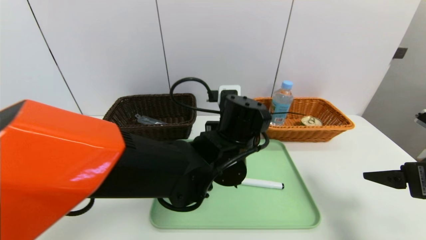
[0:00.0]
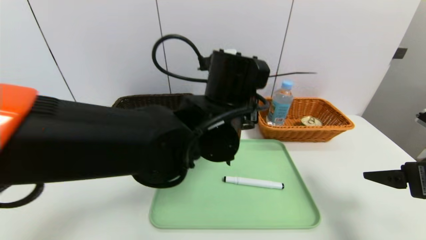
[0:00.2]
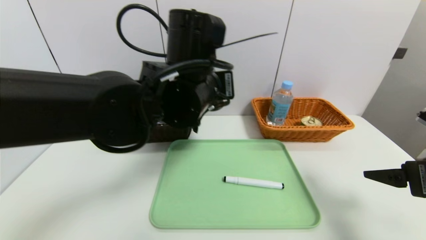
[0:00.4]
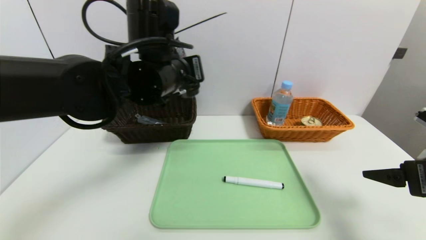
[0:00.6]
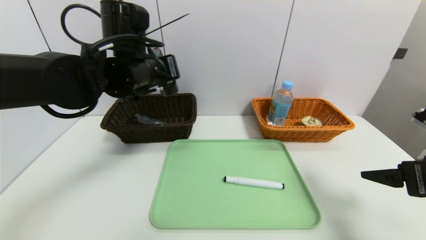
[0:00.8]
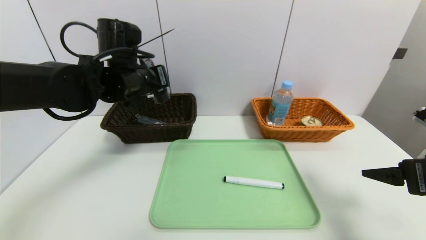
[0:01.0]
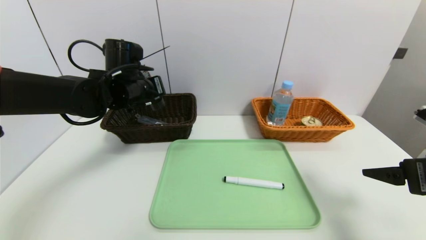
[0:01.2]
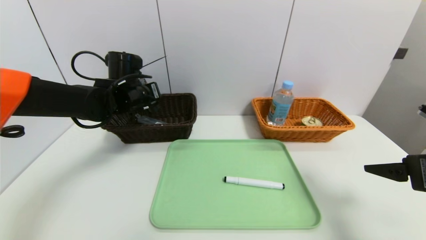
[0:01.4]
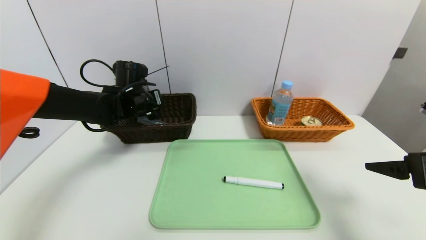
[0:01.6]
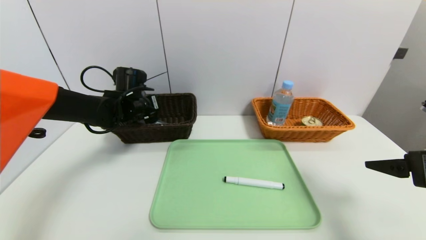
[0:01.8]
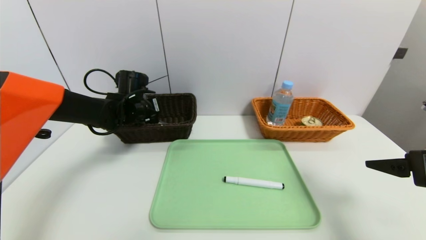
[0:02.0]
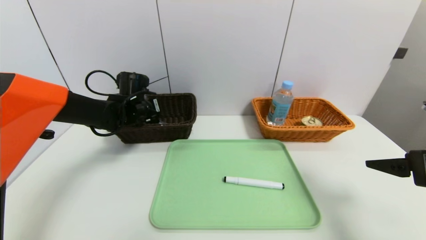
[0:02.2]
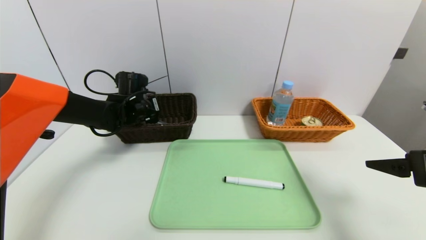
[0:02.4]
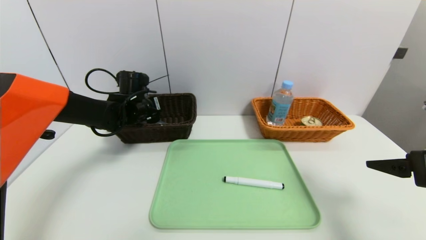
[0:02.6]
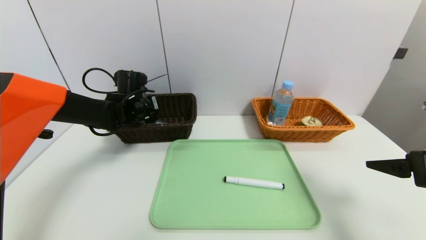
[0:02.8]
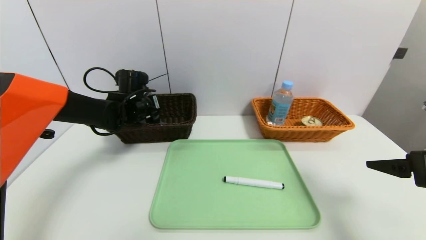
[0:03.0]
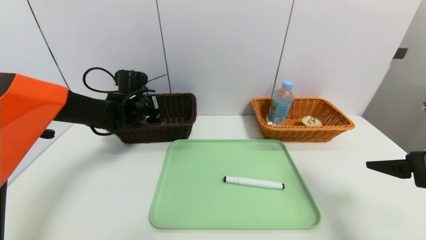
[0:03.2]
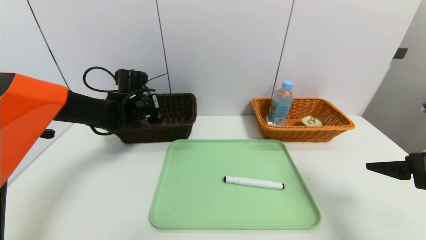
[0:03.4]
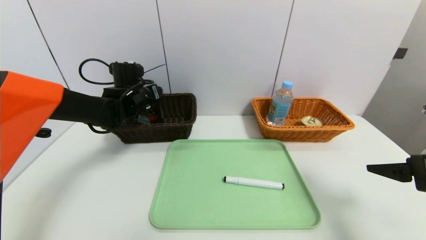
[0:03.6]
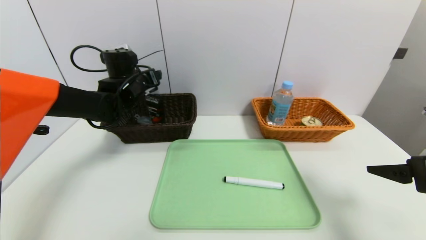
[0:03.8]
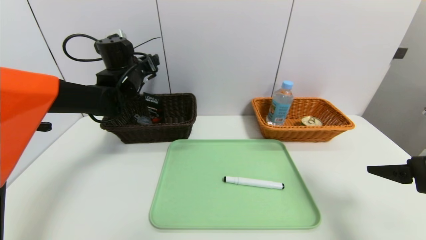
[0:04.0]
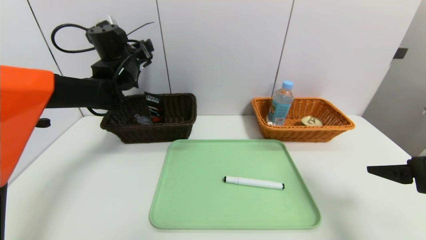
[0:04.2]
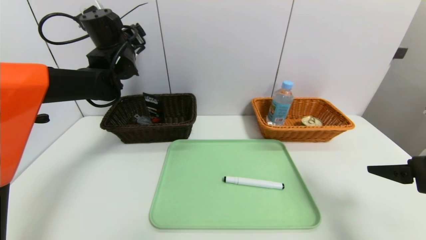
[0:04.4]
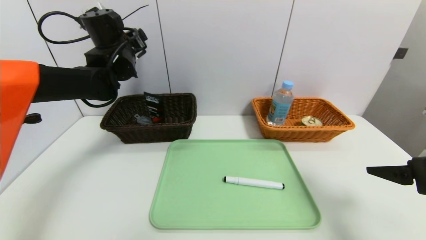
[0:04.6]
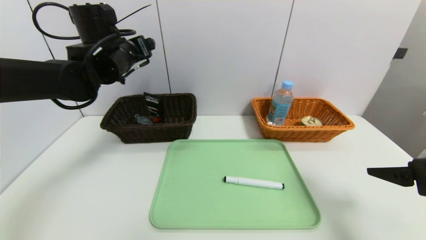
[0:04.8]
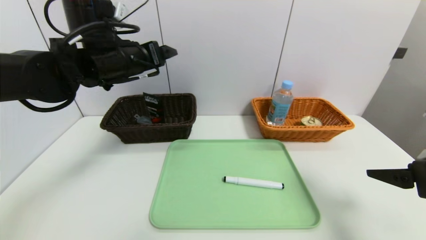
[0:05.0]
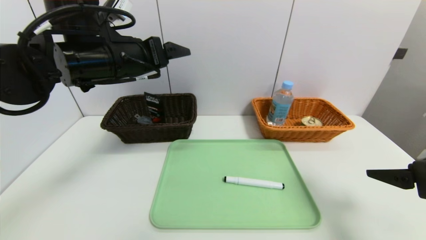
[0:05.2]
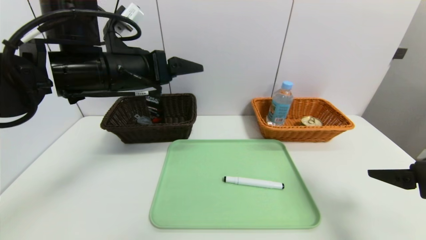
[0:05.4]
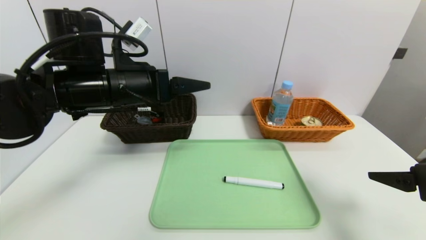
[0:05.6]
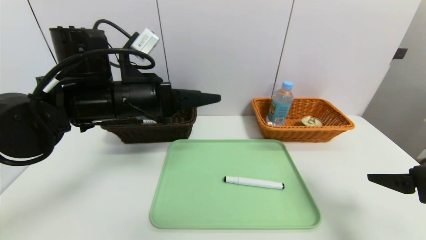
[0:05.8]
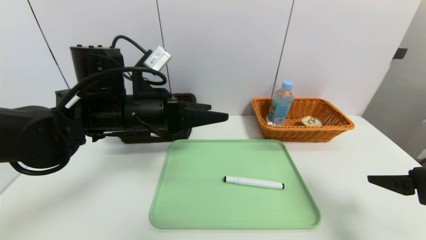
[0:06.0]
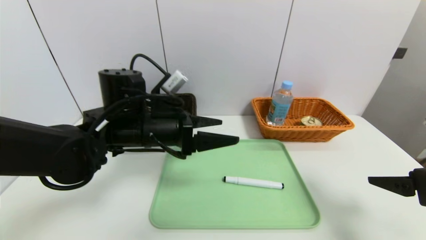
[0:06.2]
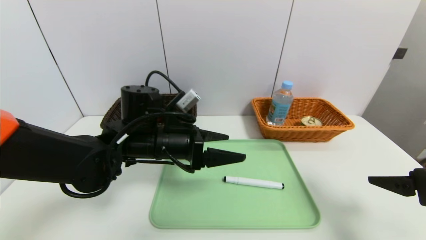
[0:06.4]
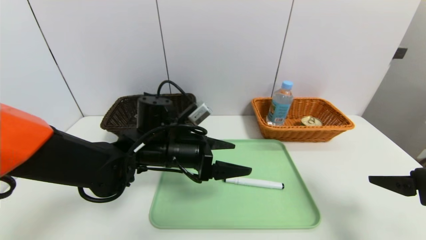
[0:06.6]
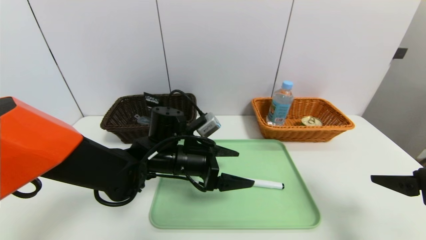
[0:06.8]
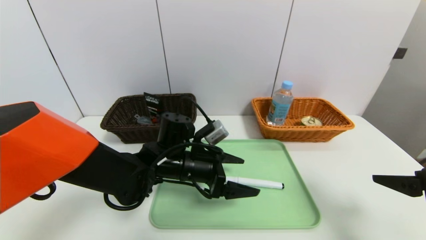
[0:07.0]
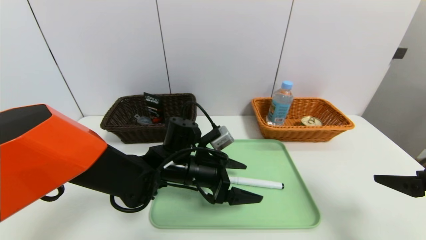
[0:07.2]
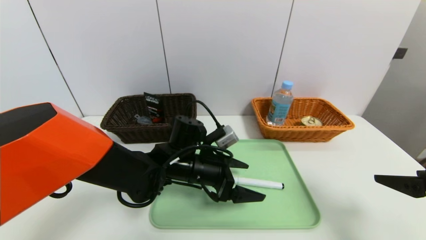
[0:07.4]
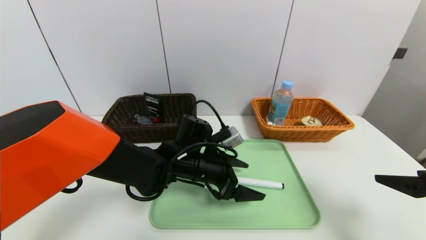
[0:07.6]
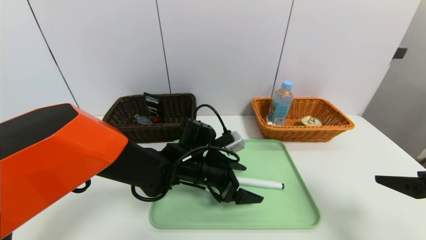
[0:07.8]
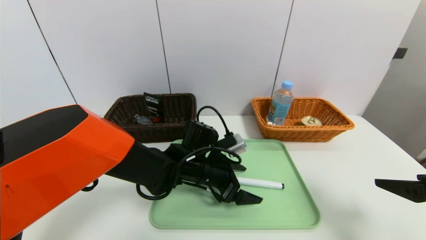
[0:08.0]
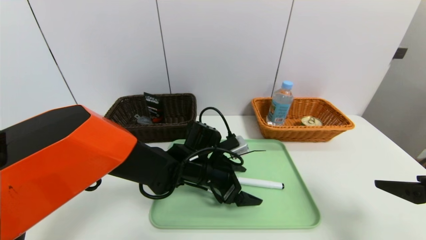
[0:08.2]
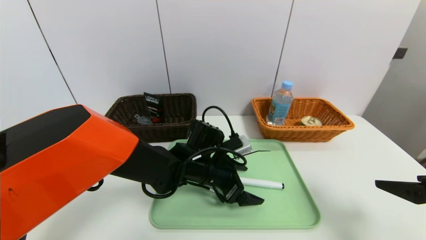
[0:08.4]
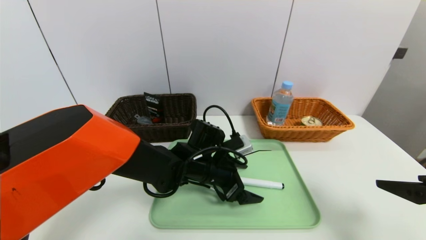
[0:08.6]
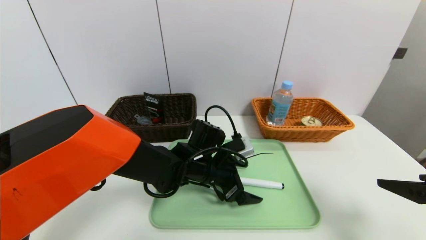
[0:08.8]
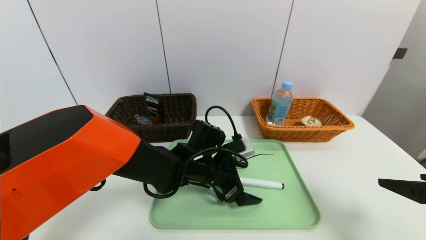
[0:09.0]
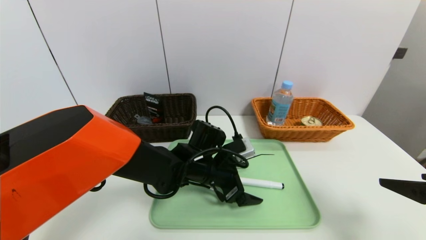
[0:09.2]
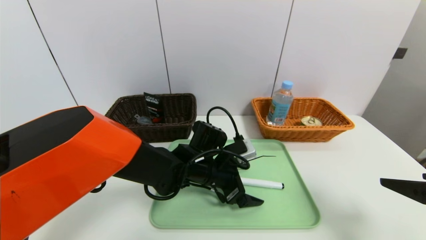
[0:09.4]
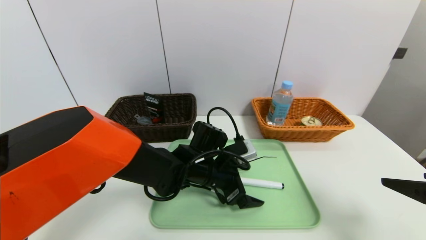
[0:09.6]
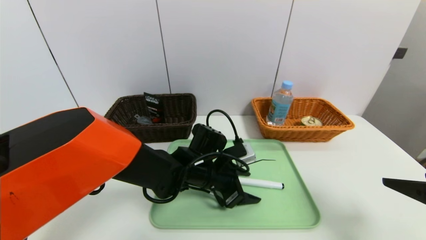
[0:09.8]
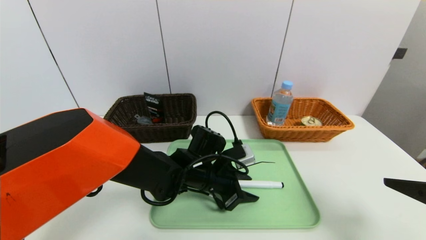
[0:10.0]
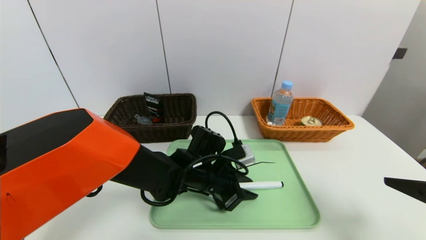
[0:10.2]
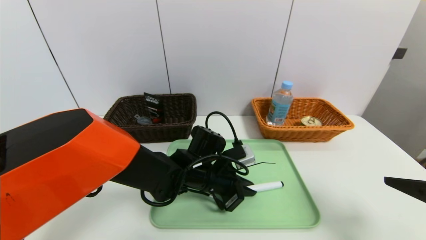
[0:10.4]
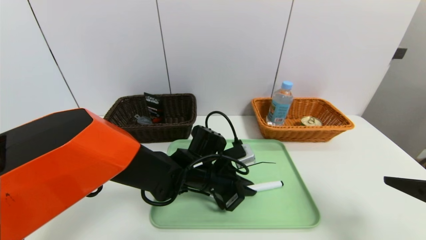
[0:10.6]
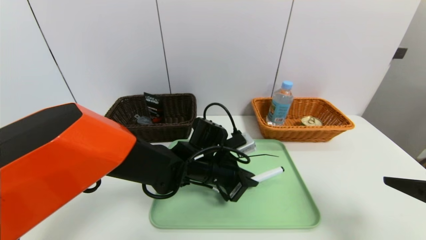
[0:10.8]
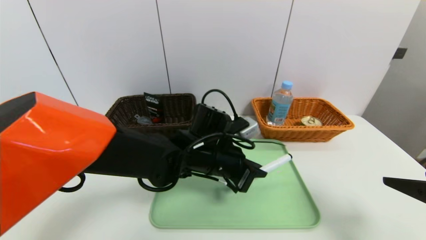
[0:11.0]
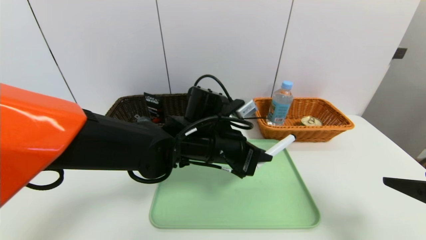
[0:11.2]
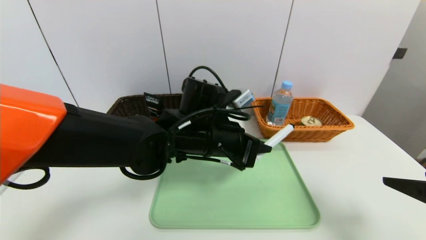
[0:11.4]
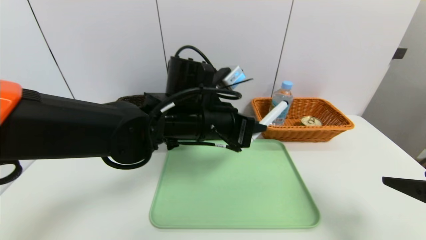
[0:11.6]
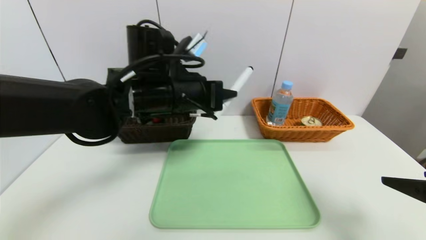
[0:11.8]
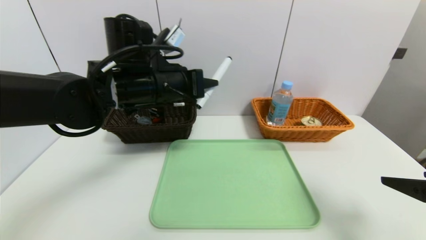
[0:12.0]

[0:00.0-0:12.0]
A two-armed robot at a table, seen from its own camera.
Task of the whole recording: place the food in the right basket with the right gripper, and place the non food items in the left basket with the left gripper.
Step, 0:00.0 to 0:03.6: Grasp the soft cleanser and put it in the left basket.
0:00.0 to 0:01.6: The left gripper shifts approximately 25 cm to the left and forward.
0:01.6 to 0:03.0: The grippers make only small movements.
0:03.0 to 0:04.4: The left gripper moves upward, roughly 15 cm, and opens its fingers.
0:04.4 to 0:06.0: The left gripper heads backward and to the right, covering approximately 20 cm.
0:06.0 to 0:07.6: The left gripper moves downward and to the right, roughly 15 cm.
0:07.6 to 0:09.0: The grippers make only small movements.
0:09.0 to 0:10.4: The left gripper closes.
0:10.4 to 0:12.0: The left gripper goes some 20 cm upward and to the left.

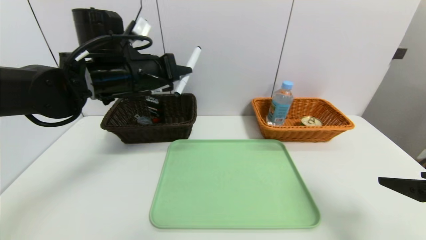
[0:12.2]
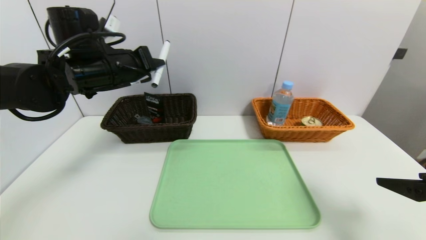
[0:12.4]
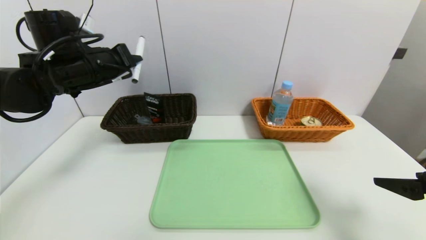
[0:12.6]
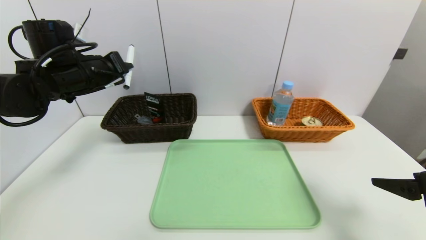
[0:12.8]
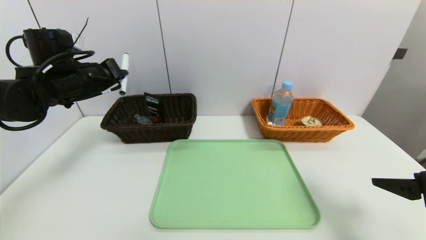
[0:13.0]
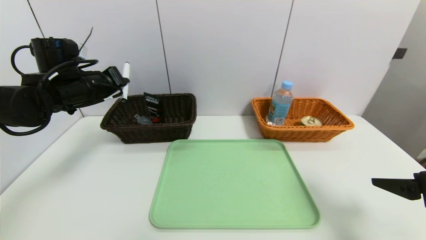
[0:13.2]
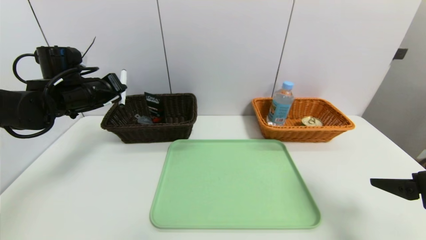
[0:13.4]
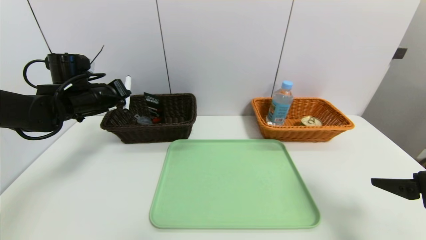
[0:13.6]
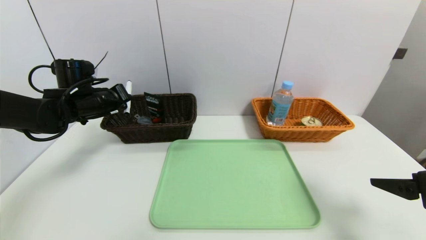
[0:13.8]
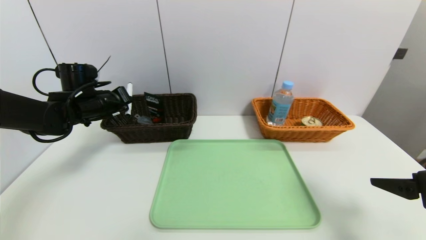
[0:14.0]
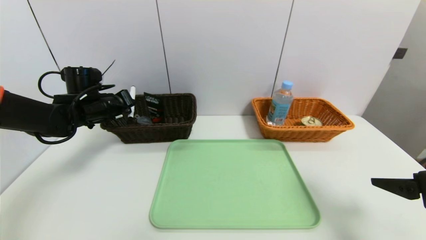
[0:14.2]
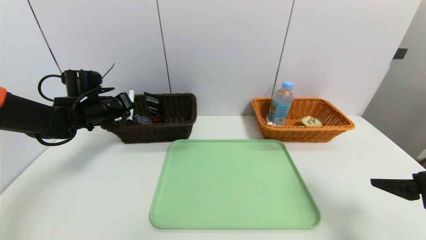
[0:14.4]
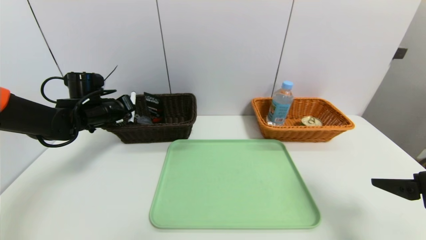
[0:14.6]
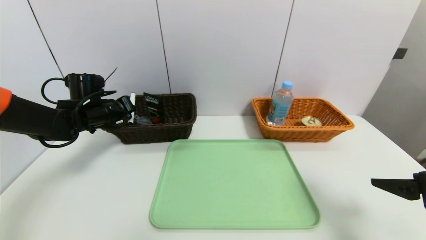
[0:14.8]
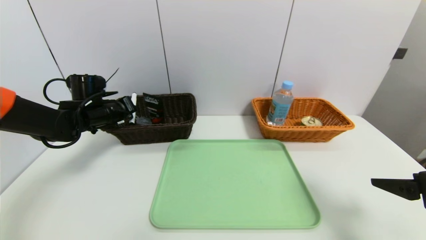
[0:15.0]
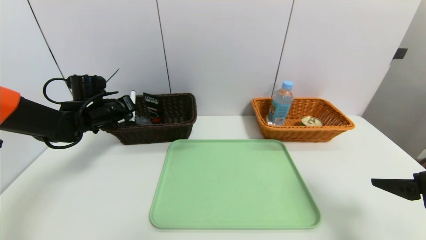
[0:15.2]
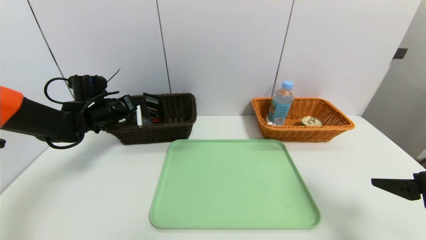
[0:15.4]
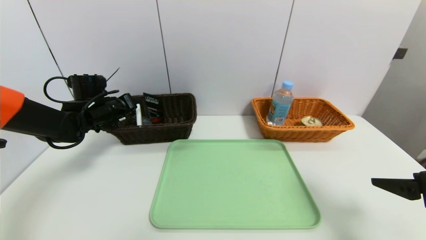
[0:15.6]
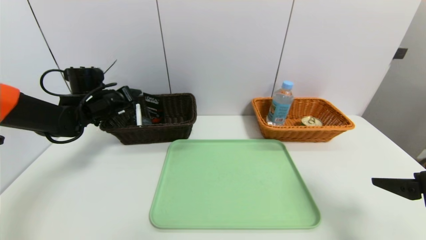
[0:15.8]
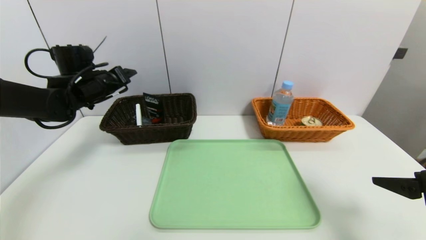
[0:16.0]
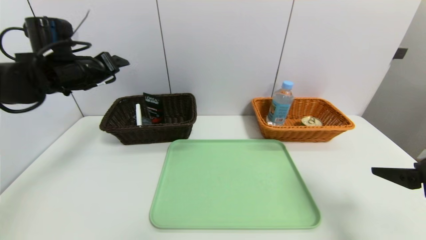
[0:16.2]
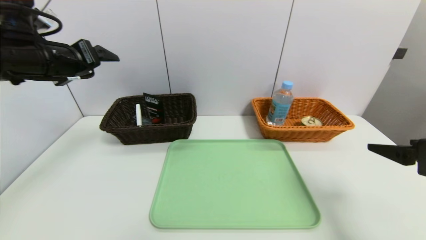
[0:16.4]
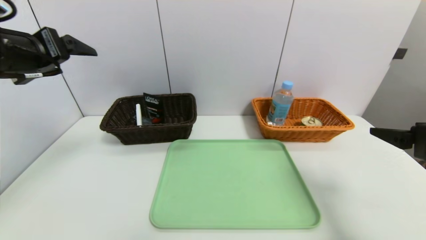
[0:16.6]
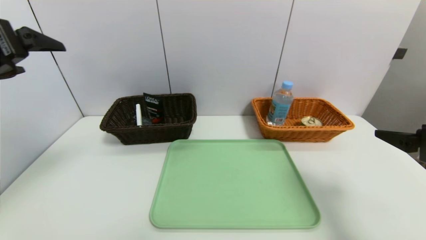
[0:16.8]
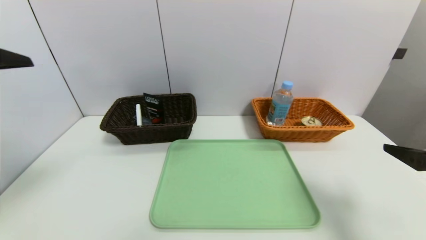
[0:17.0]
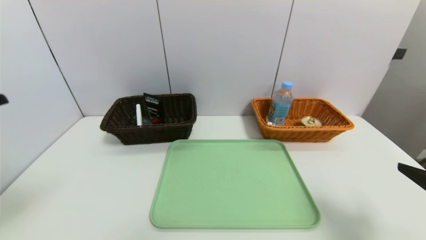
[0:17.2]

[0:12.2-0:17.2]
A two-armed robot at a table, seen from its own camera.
Task of the whole recording: place the food in the right basket with the right gripper, and place the non food items in the left basket with the left gripper.
Step, 0:12.2 to 0:15.6: Grasp the black marker and put it in the left basket.
0:12.2 to 0:13.8: The left gripper is displaced to the left, downward and forward by about 15 cm.
0:13.8 to 0:15.6: The left gripper opens.
0:15.6 to 0:17.2: The left gripper is displaced backward and upward by some 35 cm, and opens its fingers.
